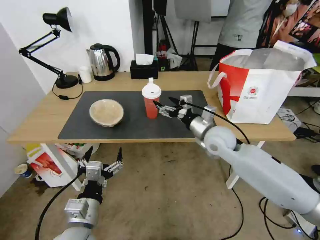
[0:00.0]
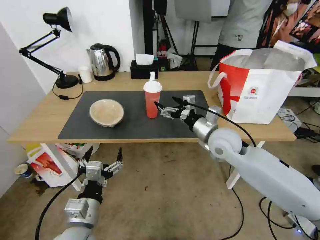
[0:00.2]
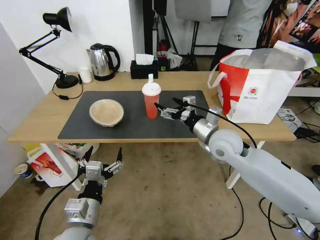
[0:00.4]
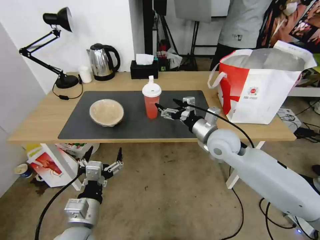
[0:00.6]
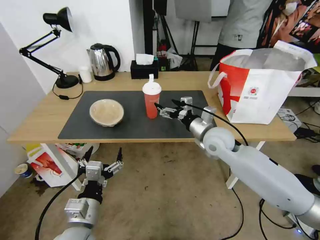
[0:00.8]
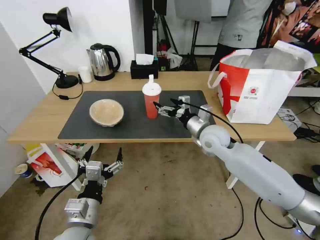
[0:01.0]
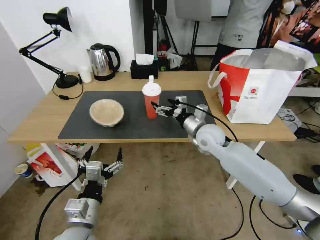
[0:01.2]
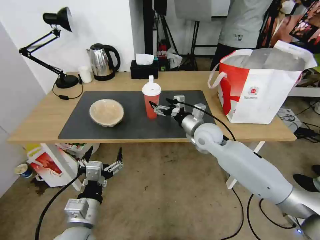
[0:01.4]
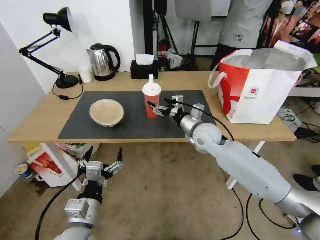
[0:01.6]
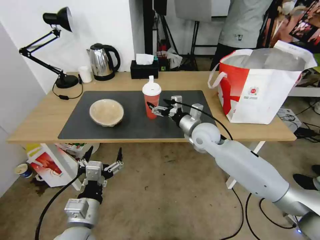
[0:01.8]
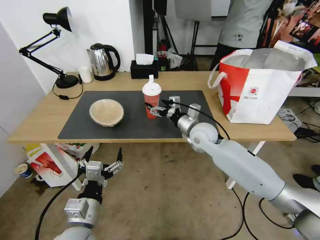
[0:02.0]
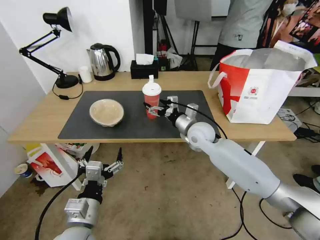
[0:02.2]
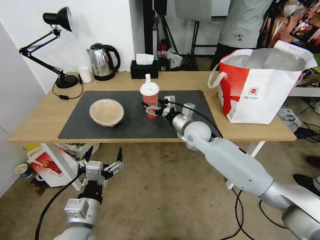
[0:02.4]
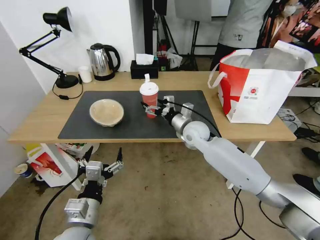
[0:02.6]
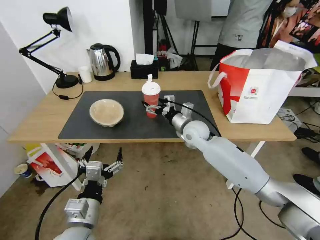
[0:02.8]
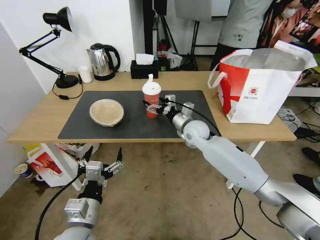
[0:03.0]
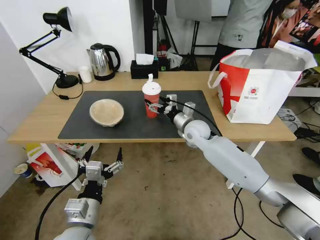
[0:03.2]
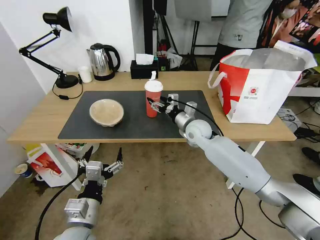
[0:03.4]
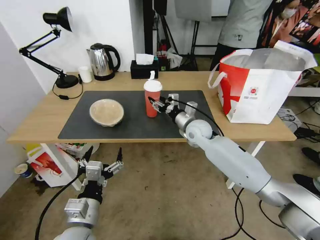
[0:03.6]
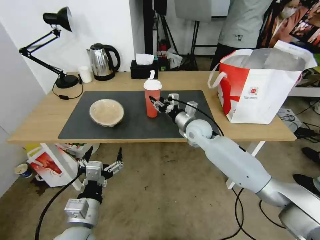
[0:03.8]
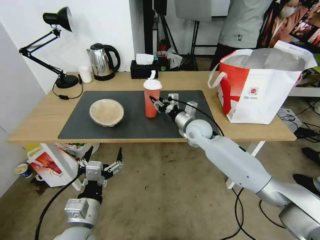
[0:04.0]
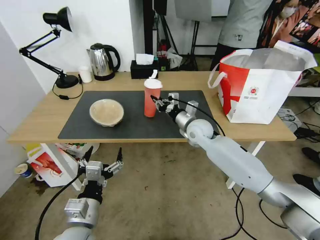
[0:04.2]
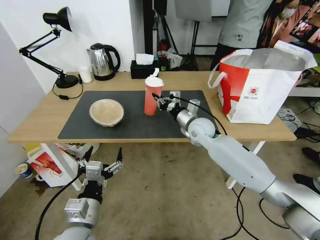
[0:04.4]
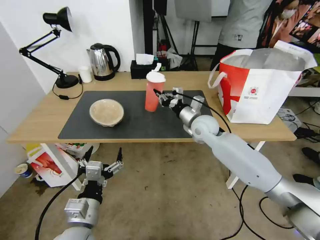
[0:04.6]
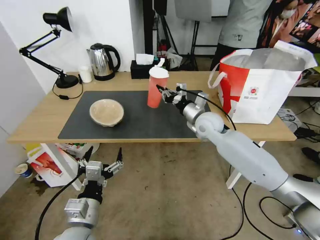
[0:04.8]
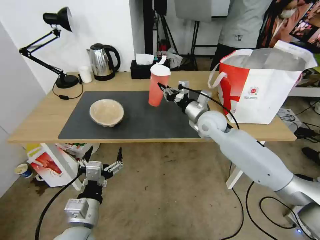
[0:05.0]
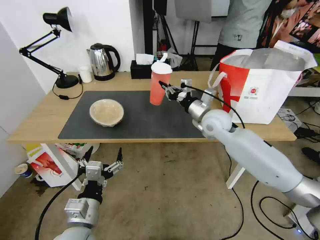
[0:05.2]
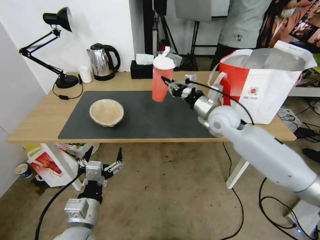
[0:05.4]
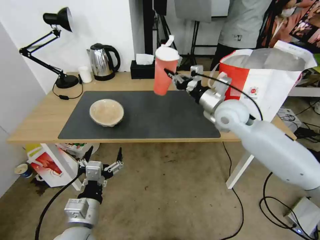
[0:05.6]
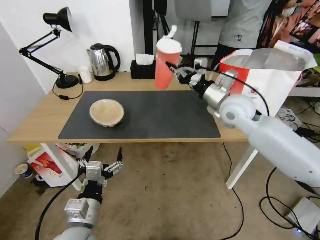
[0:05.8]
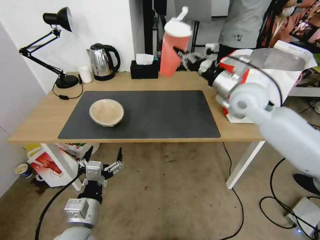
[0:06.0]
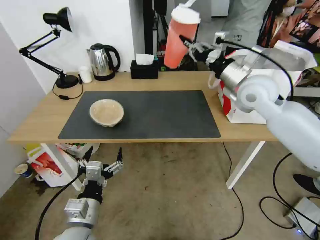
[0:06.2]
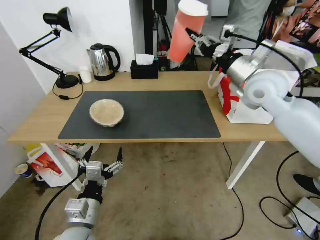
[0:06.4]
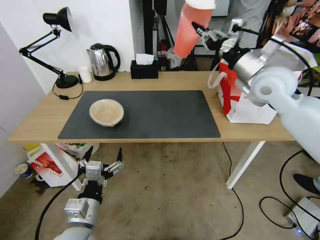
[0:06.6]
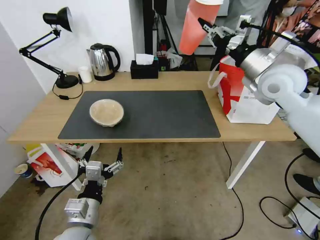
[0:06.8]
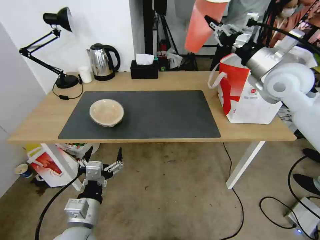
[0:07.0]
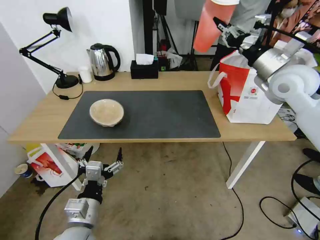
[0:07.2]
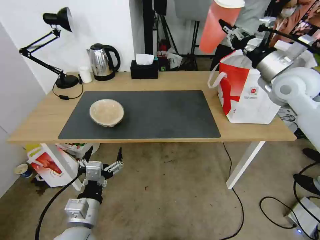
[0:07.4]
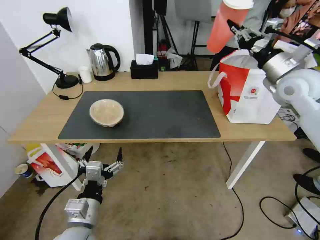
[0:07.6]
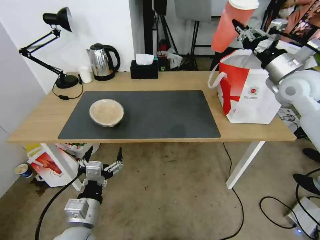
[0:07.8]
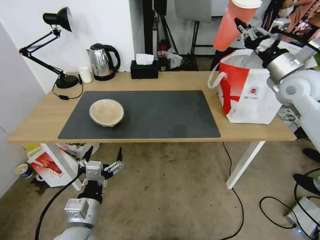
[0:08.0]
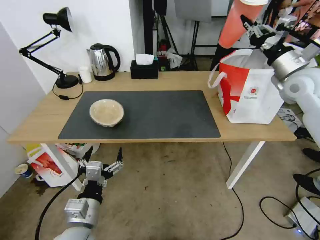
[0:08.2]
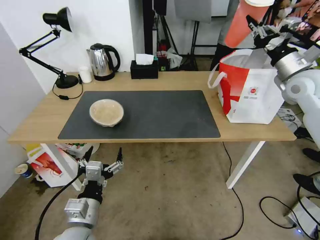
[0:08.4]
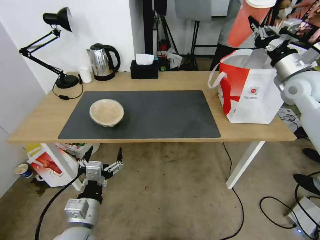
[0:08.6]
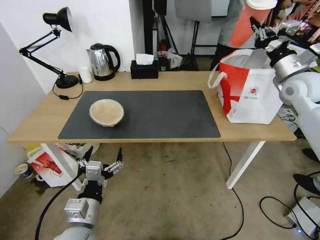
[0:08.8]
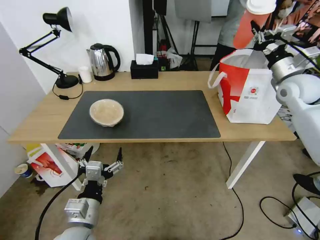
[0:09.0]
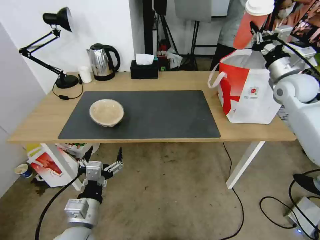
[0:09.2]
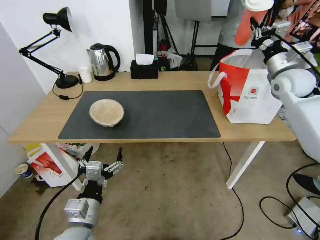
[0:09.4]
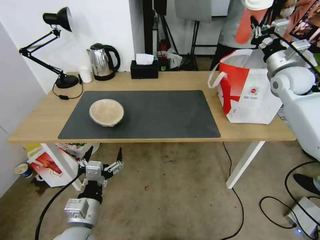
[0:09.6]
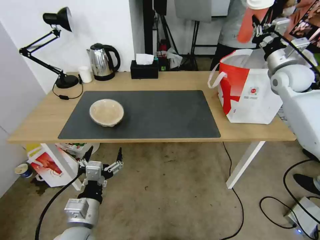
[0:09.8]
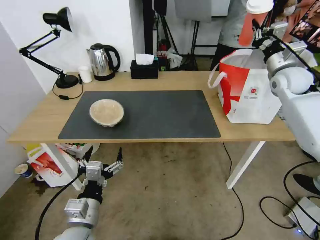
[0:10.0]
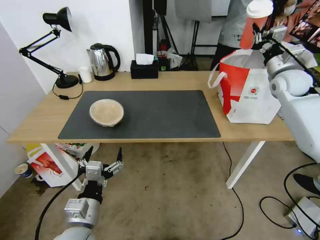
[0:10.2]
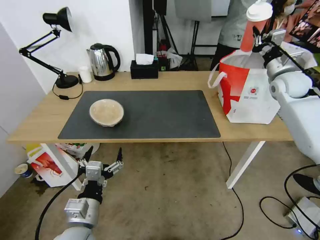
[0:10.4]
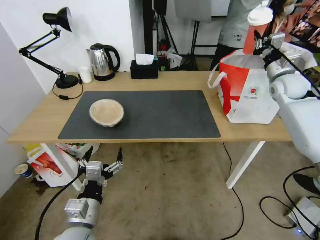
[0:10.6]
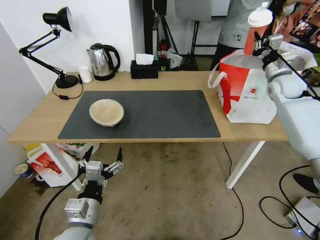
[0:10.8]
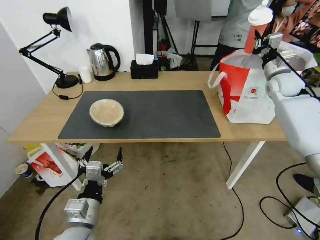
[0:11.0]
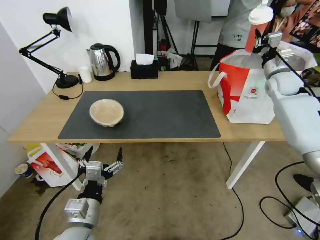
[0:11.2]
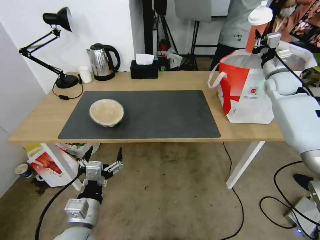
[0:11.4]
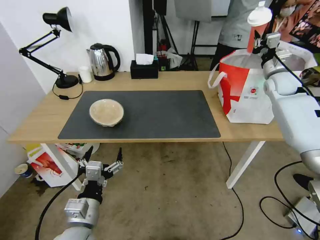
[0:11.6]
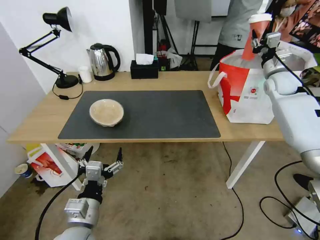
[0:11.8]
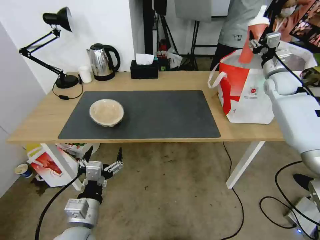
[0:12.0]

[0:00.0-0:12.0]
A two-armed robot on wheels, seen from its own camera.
Task of the whole recording: Pick up the trash from the table and place it into the takeout bag.
0:00.0 to 0:01.6: The right gripper moves roughly 5 cm.
0:01.6 to 0:03.0: The right gripper ends up about 5 cm from where it was.
0:03.0 to 0:04.4: The right gripper closes up.
0:04.4 to 0:06.0: The right gripper shifts roughly 20 cm upward and to the right.
0:06.0 to 0:07.6: The right gripper is displaced to the right by roughly 15 cm.
0:07.6 to 0:09.0: The right gripper changes place by roughly 5 cm.
0:09.0 to 0:10.4: The right gripper shifts by approximately 5 cm.
0:10.4 to 0:12.0: The right gripper opens up.

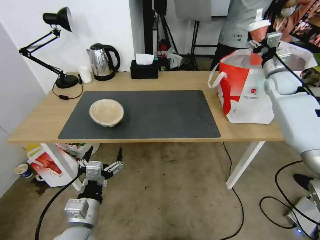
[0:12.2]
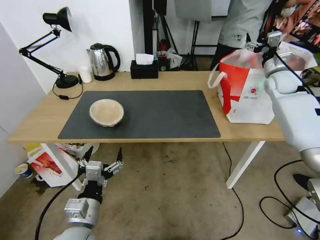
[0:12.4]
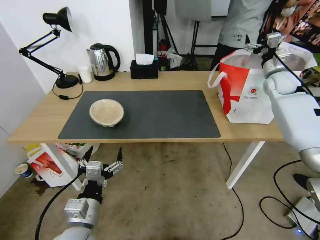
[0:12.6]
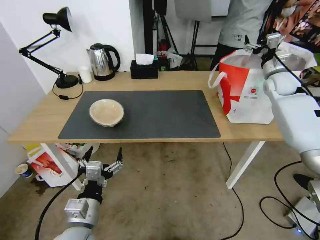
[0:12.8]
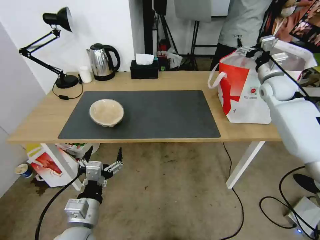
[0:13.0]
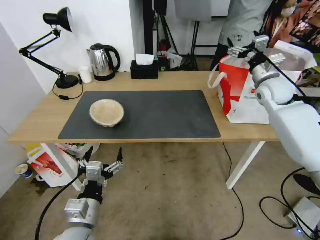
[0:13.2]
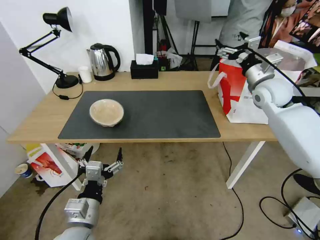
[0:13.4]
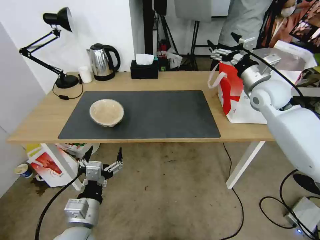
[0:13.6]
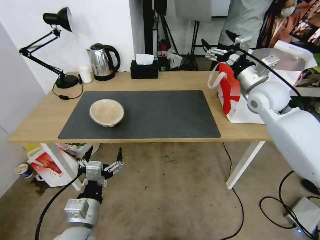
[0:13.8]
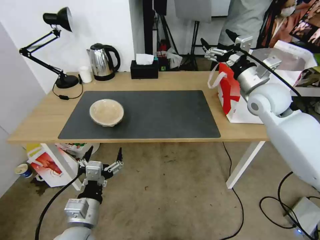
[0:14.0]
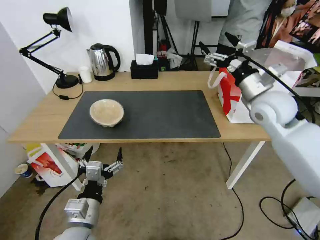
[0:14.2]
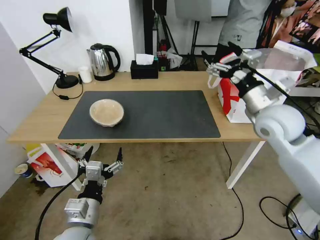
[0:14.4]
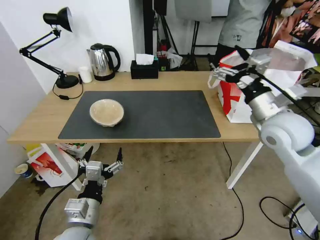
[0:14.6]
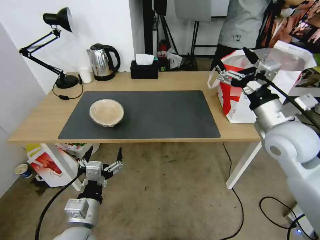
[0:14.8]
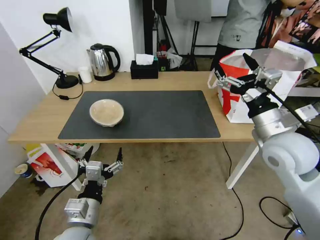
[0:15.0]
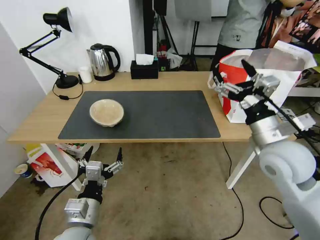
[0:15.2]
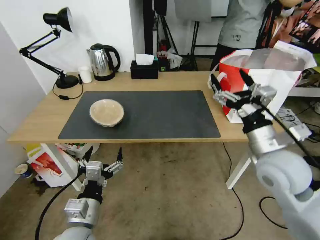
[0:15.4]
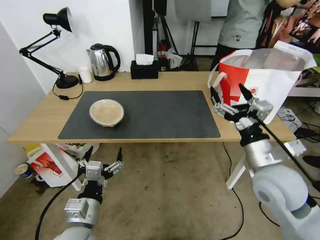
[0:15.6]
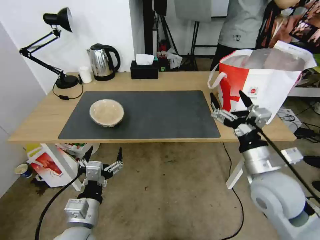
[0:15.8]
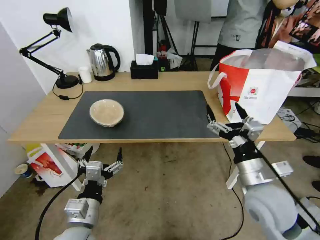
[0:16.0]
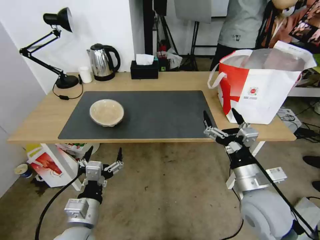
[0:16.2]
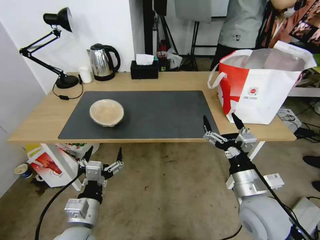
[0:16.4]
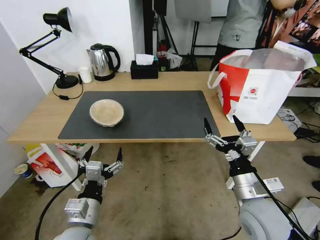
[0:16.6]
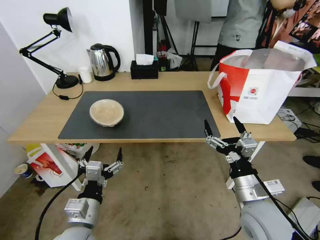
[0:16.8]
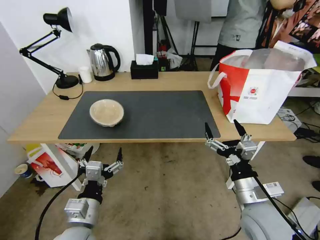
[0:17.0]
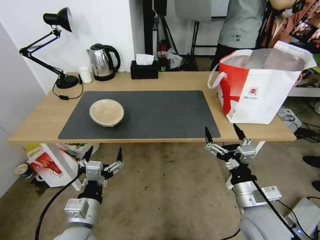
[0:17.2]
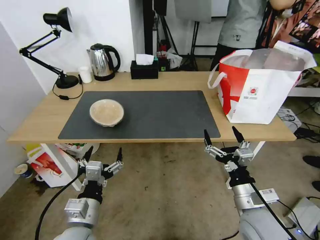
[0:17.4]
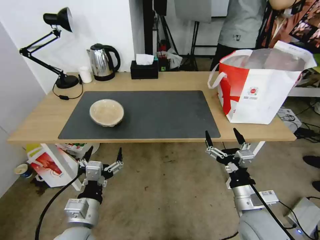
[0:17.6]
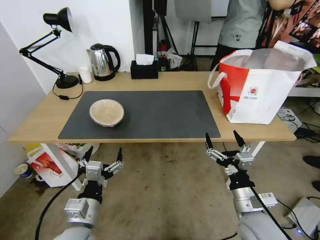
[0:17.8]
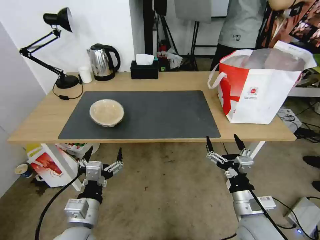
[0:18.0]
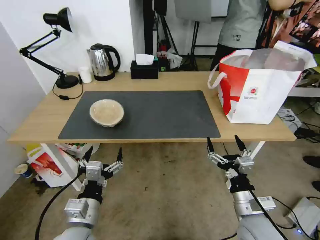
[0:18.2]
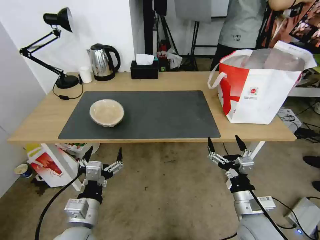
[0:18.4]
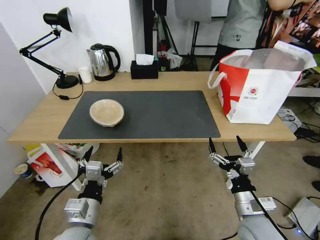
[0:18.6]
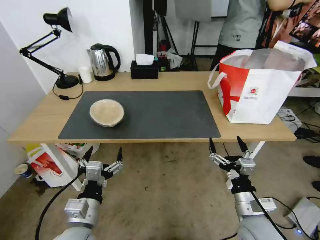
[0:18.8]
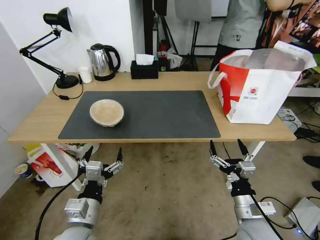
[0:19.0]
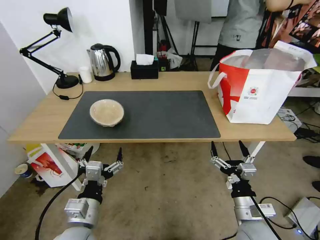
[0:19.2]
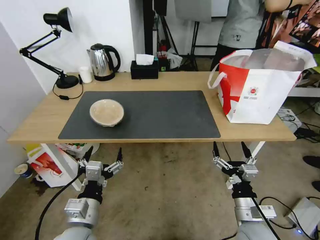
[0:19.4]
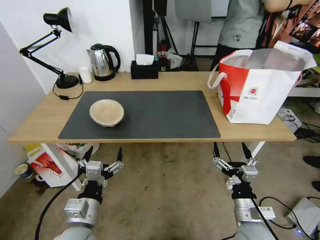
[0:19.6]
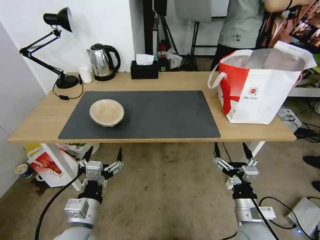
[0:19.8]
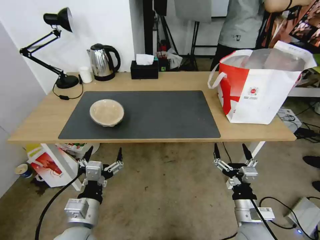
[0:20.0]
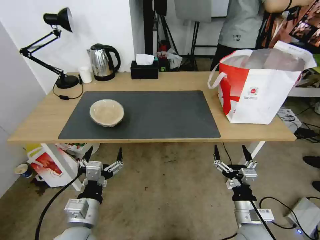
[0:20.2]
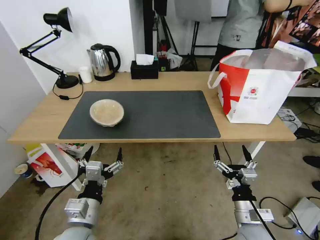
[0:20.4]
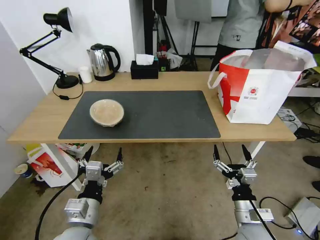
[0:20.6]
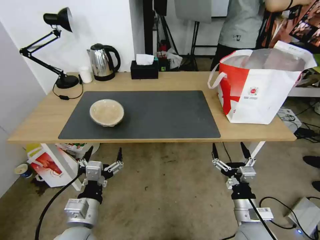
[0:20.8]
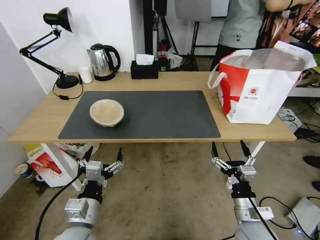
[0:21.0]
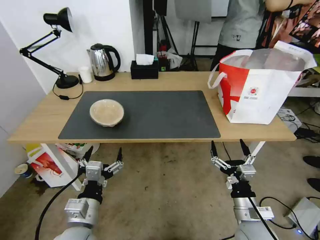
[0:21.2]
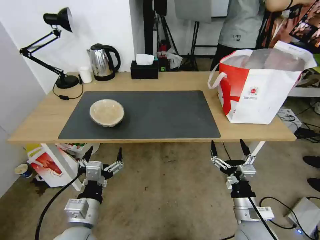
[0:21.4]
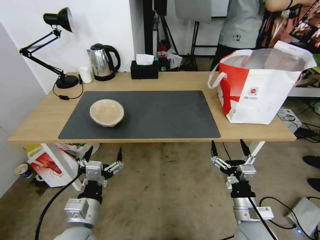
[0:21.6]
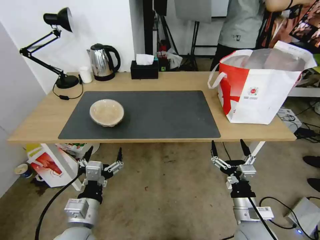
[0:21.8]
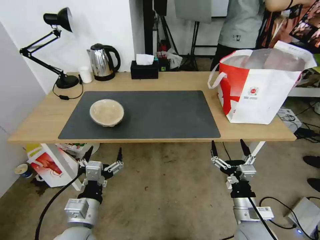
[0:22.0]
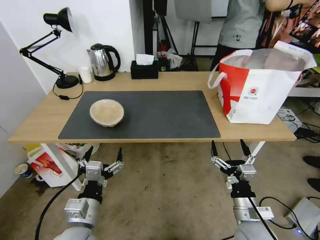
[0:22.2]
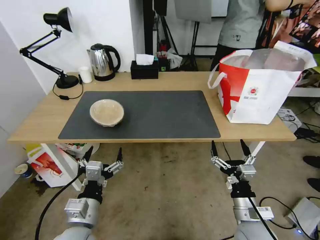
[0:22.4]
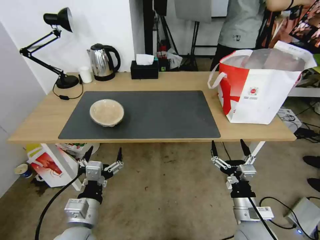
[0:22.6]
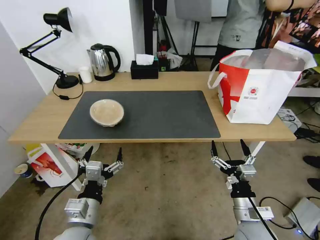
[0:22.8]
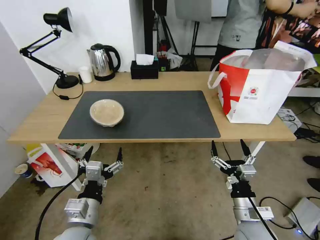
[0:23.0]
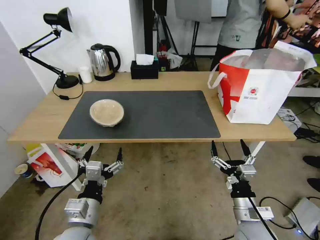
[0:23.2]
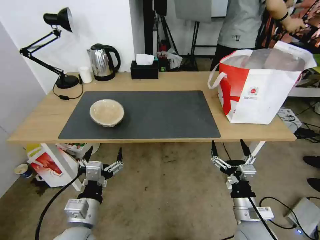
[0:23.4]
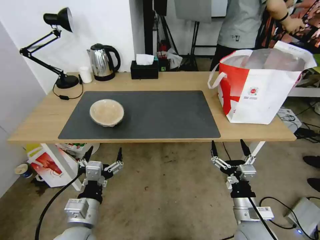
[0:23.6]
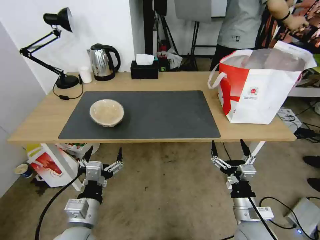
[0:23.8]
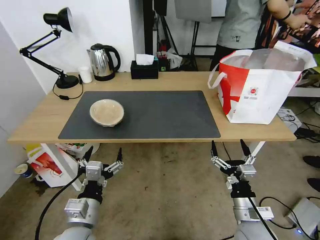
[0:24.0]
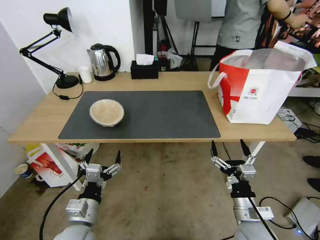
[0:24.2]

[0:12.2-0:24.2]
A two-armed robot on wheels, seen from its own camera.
Task of the whole recording: Pick up the trash from the table and place it into the takeout bag.
0:12.2 to 0:13.8: The right gripper is displaced to the left and backward by roughly 15 cm.
0:13.8 to 0:15.2: The right gripper is displaced backward by approximately 15 cm.
0:15.2 to 0:16.6: The right gripper moves downward and backward, about 15 cm.
0:16.6 to 0:18.2: The right gripper shifts about 5 cm downward.
0:18.2 to 0:19.8: There are only small adjustments of the grippers.
0:19.8 to 0:21.2: The two grippers keep their place.
0:21.2 to 0:22.6: Both grippers stay about where they are.
0:22.6 to 0:24.2: The grippers make only small movements.
